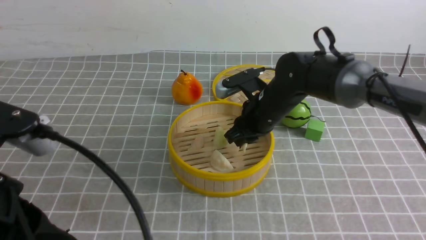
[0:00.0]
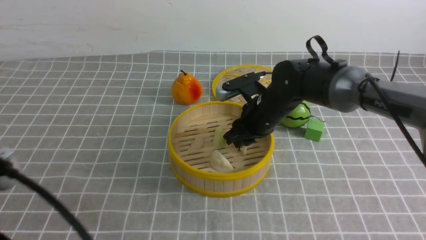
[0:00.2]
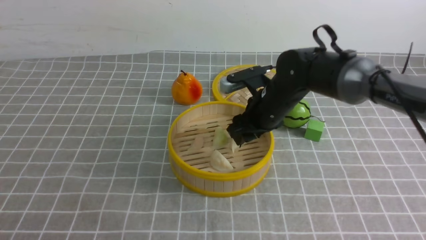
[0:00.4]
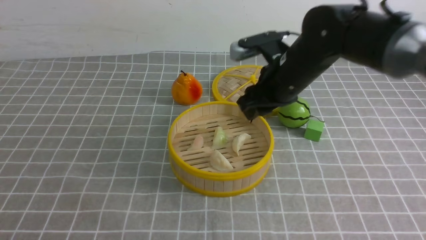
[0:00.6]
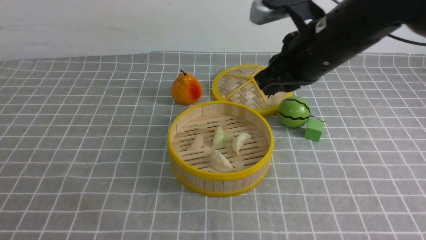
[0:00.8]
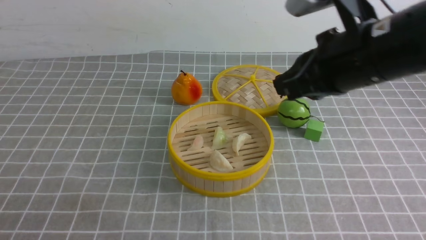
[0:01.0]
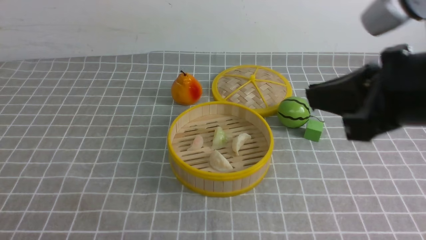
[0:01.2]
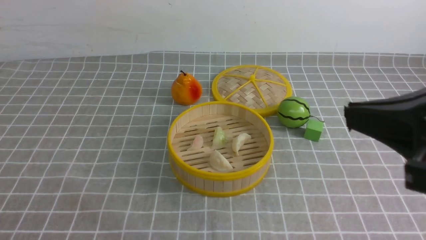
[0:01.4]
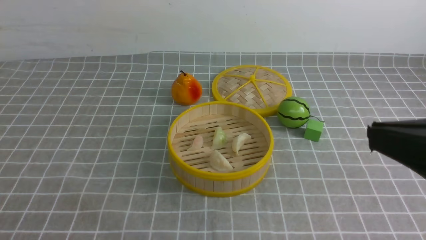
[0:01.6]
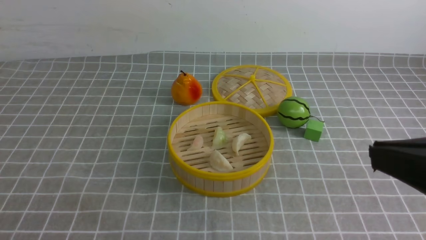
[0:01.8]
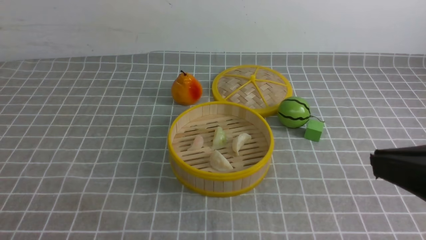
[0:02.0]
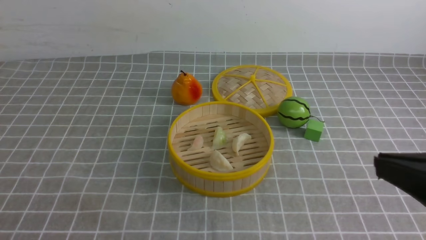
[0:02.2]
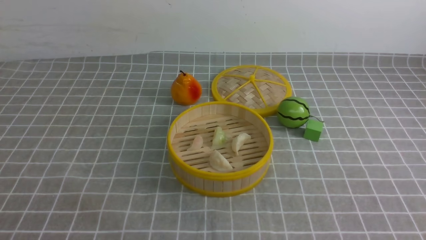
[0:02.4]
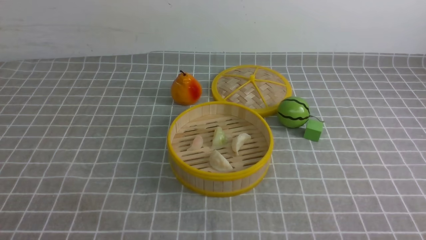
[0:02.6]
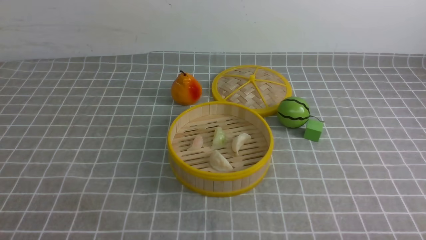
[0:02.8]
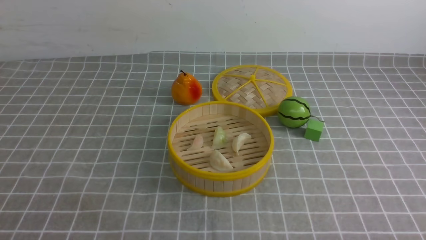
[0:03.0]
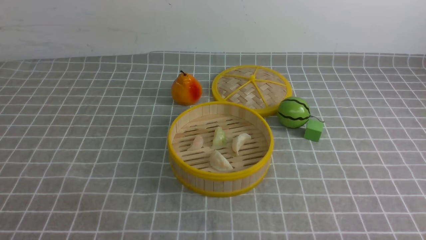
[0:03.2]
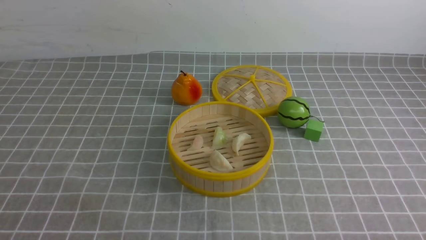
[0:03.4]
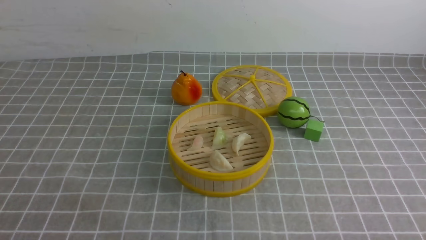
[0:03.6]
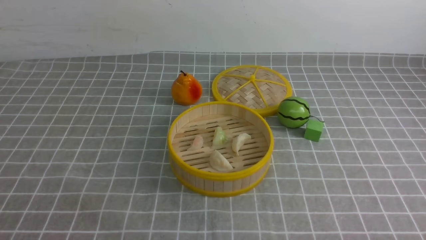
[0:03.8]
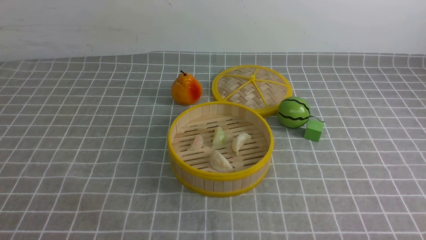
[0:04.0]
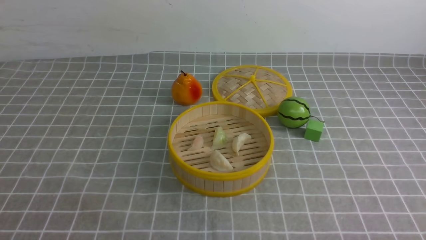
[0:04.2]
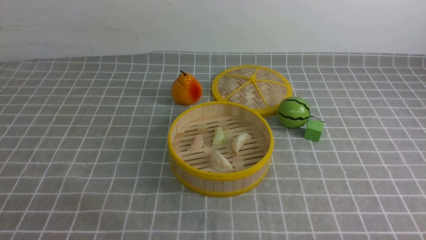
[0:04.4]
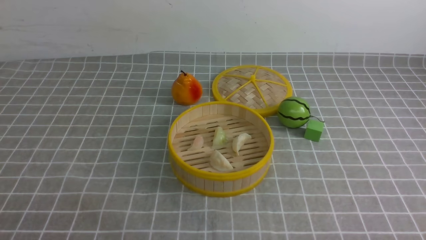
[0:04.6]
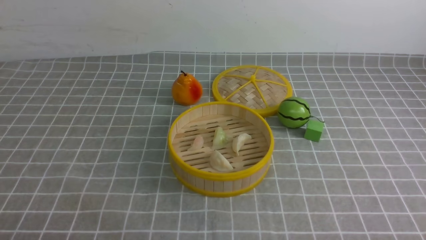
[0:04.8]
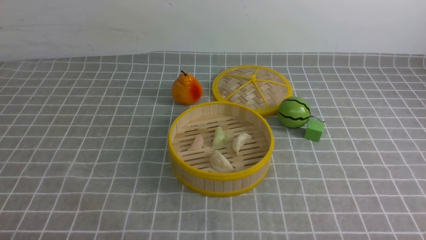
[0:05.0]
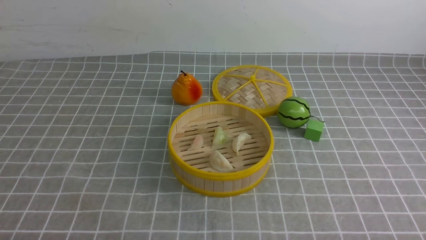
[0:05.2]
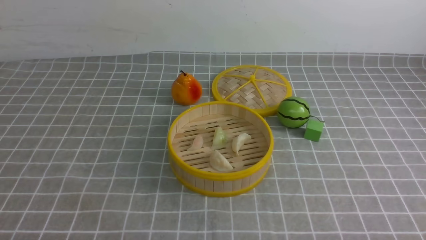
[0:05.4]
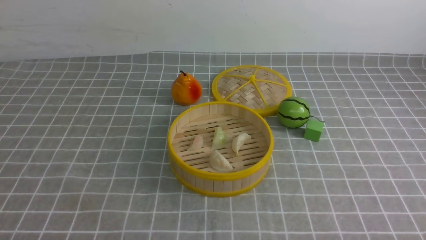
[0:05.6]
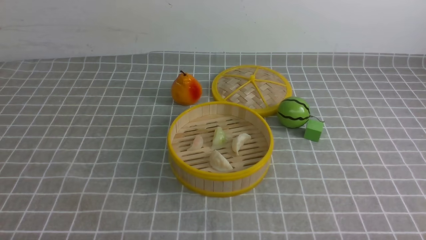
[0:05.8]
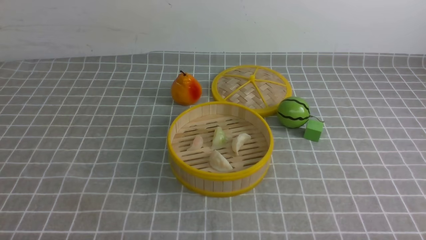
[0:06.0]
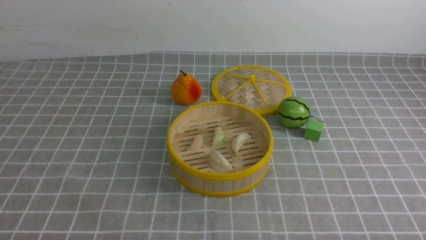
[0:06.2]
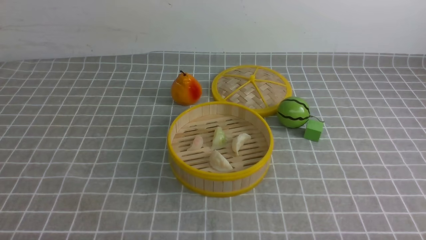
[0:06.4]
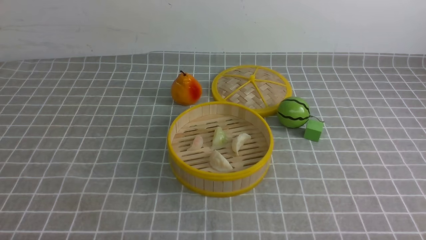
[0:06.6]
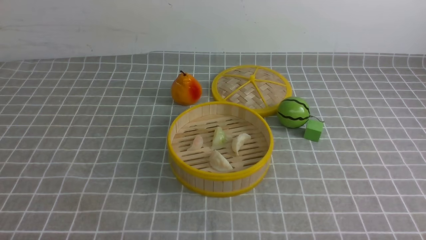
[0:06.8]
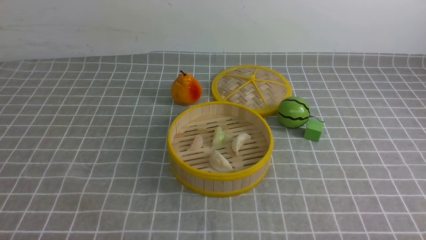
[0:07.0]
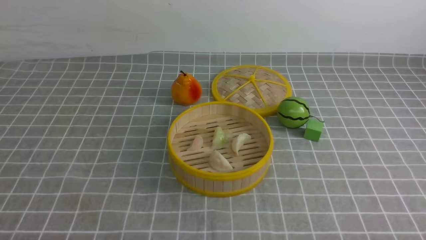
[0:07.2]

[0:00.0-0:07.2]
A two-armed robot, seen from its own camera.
Task of the whole recording: put the dumplings into the steamer on the table with the grey tablecloth.
0:00.0 to 0:01.4: The left gripper travels backward and to the left by approximately 10 cm. Meanwhile the right gripper goes roughly 30 cm backward, upward and to the right, and closes up.
0:01.4 to 0:02.8: The right gripper shifts roughly 25 cm downward, backward and to the right.
0:05.8 to 0:07.2: Both grippers stay put.
